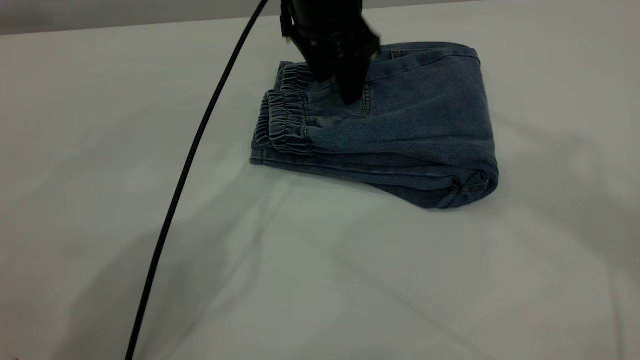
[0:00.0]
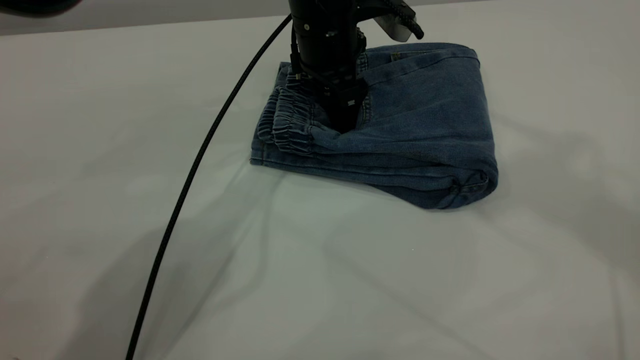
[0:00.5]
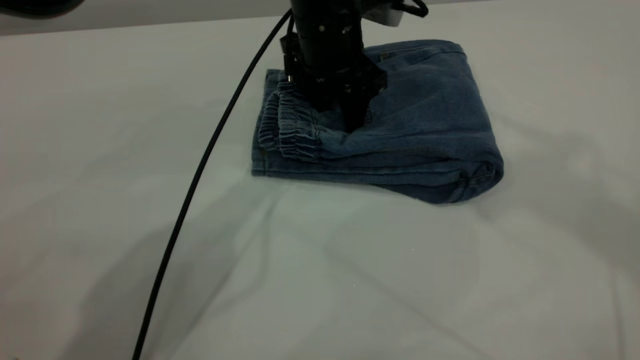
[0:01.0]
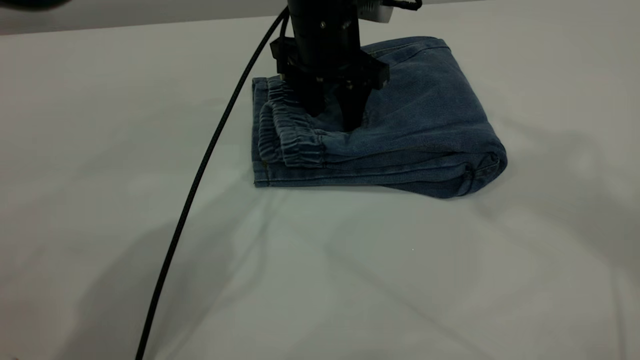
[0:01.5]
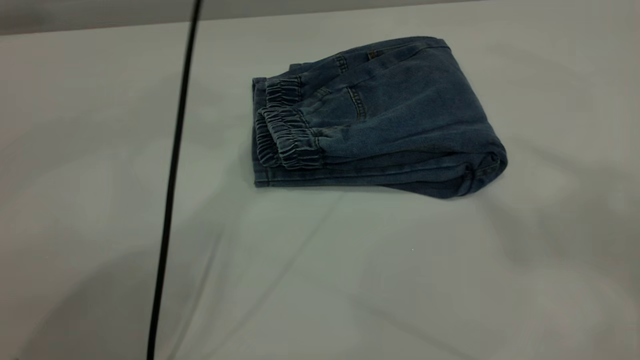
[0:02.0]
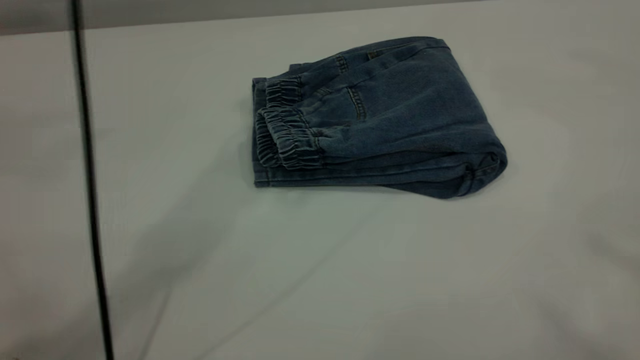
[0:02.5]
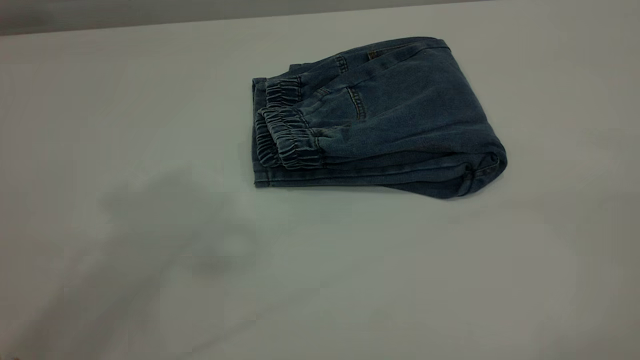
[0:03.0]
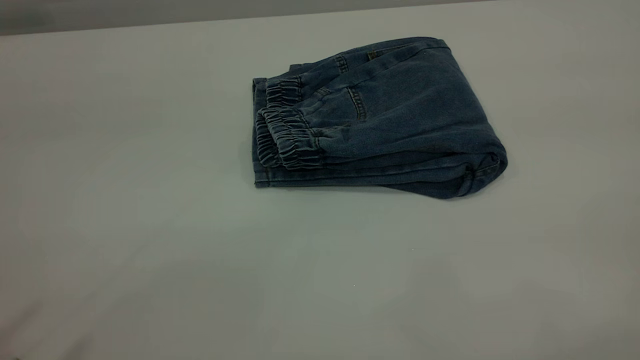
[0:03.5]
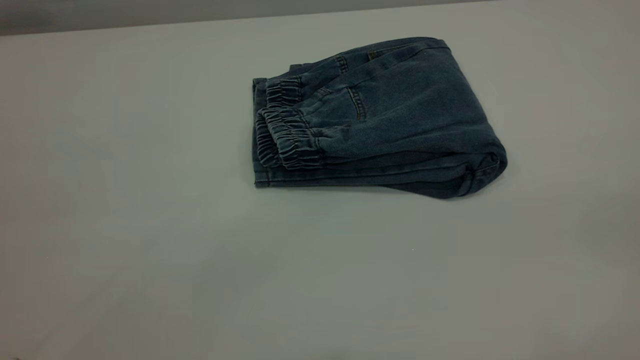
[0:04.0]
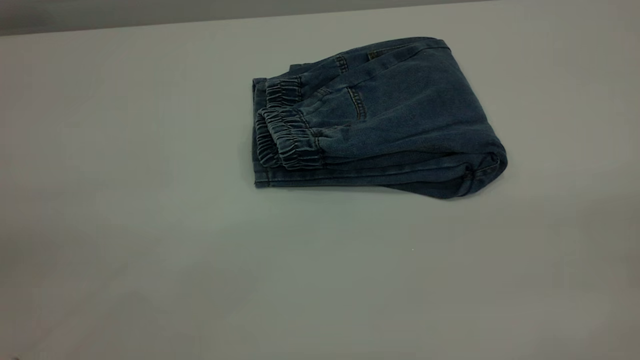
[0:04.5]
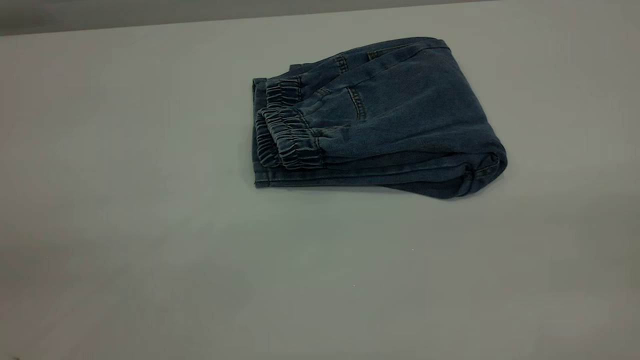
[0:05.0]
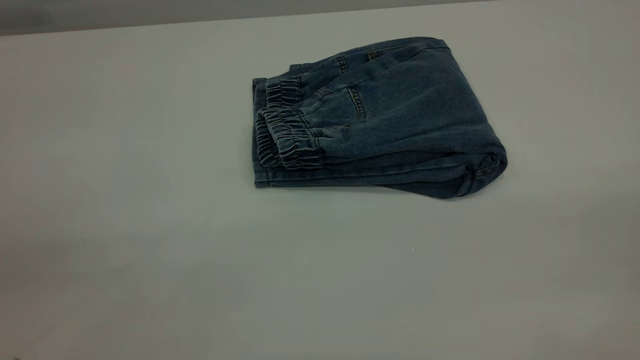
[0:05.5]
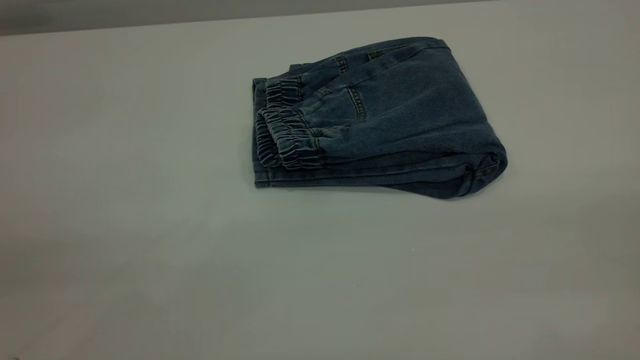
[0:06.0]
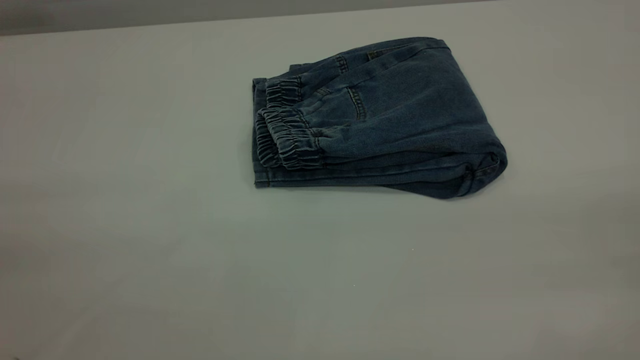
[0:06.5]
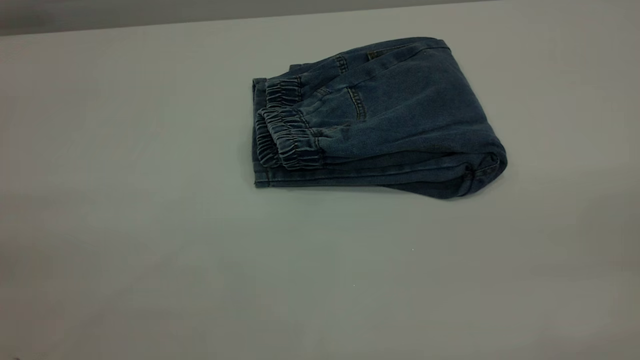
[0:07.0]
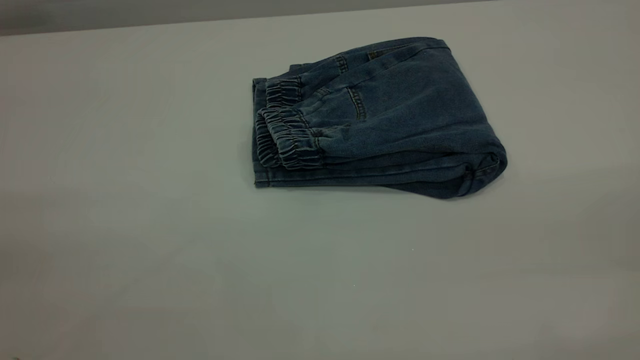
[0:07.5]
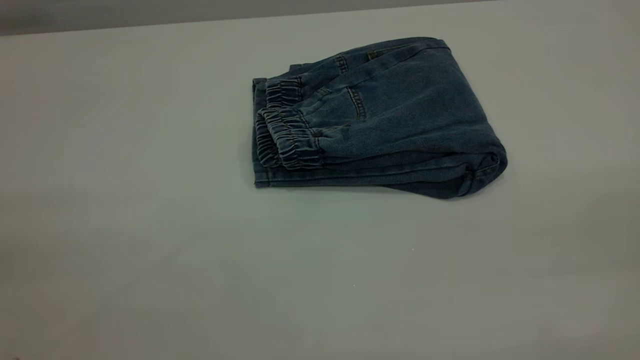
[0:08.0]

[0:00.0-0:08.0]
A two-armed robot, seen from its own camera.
0:00.0 to 0:02.0: The right gripper is displaced backward by about 5 cm. The left gripper heads upward, covering roughly 15 cm.
0:02.0 to 0:04.0: The left gripper shifts approximately 50 cm backward and to the left.

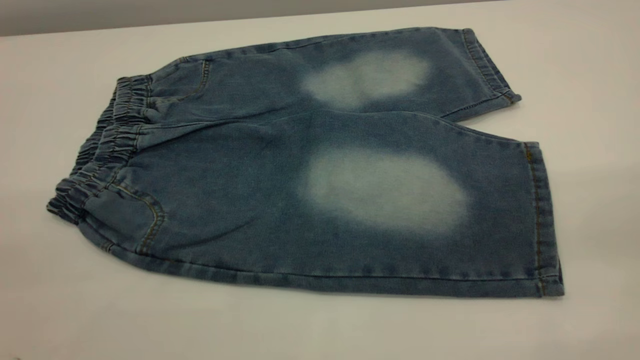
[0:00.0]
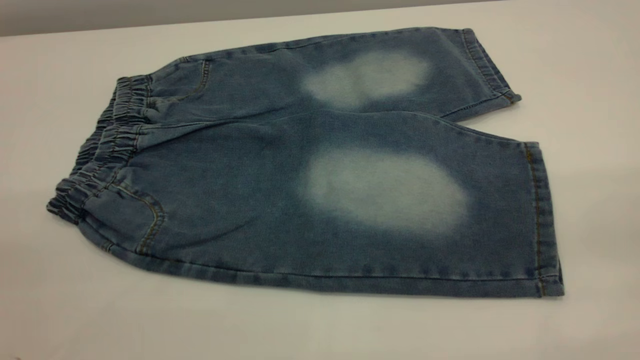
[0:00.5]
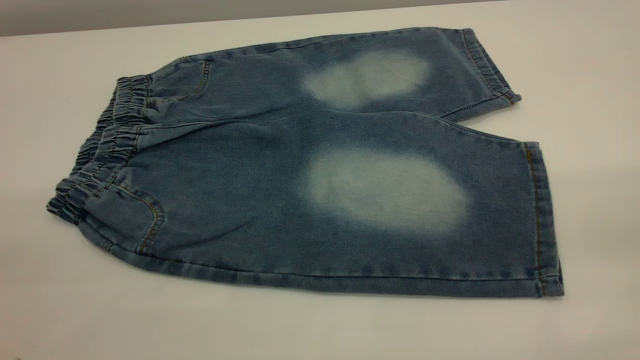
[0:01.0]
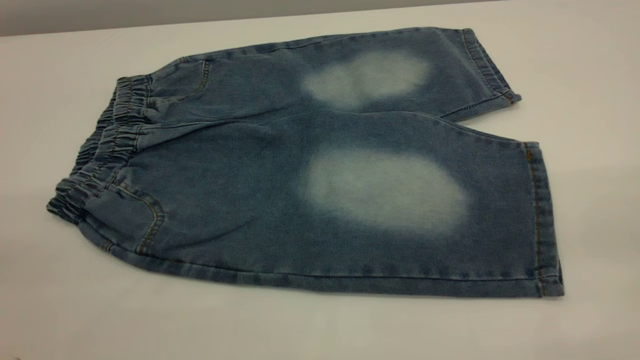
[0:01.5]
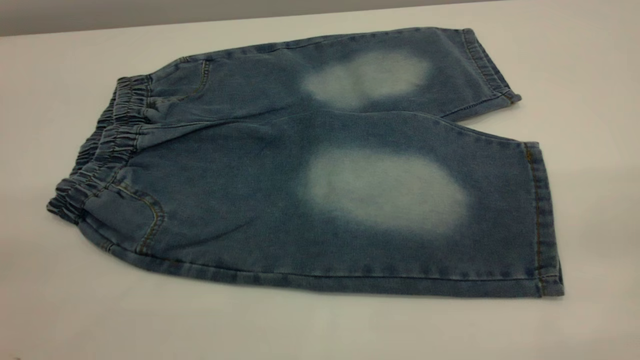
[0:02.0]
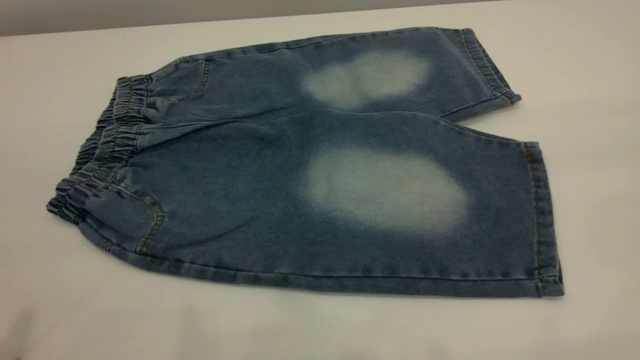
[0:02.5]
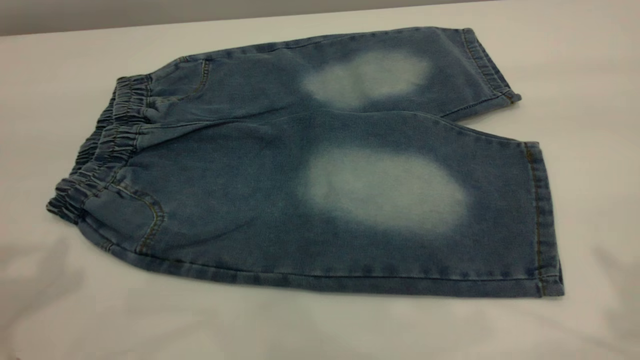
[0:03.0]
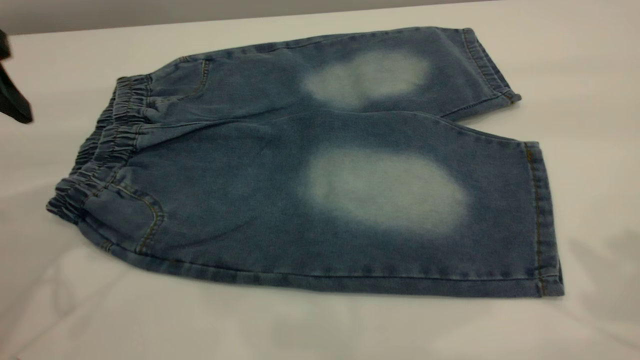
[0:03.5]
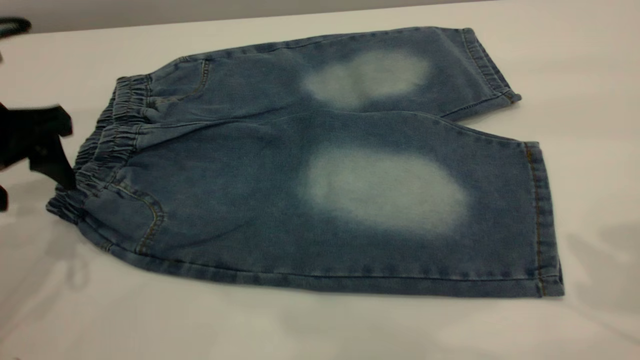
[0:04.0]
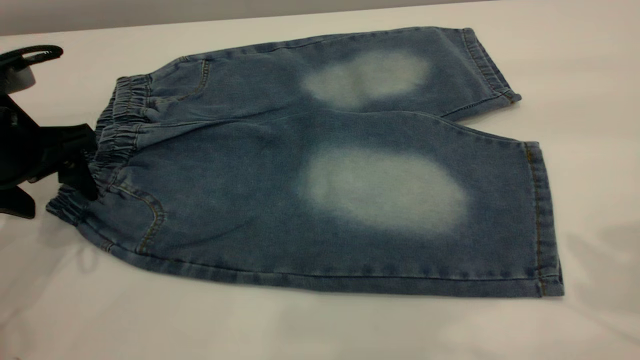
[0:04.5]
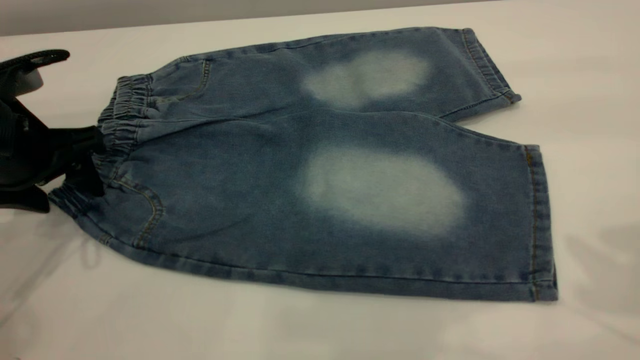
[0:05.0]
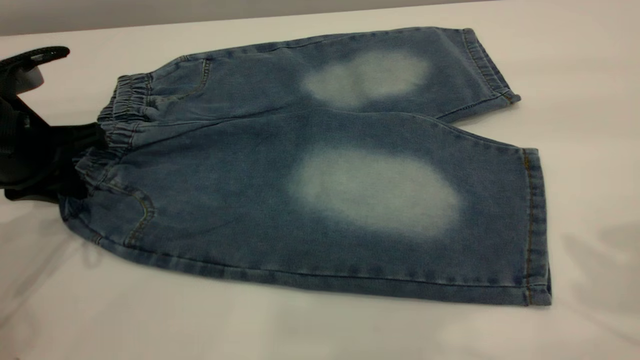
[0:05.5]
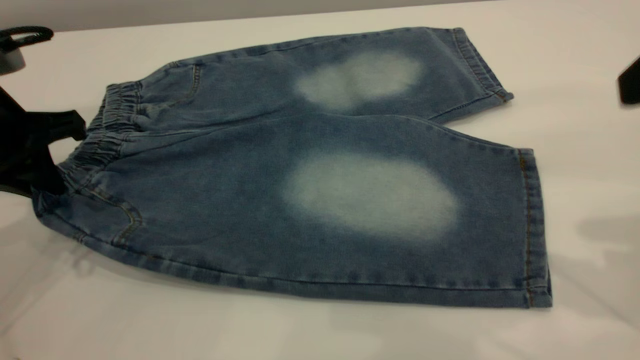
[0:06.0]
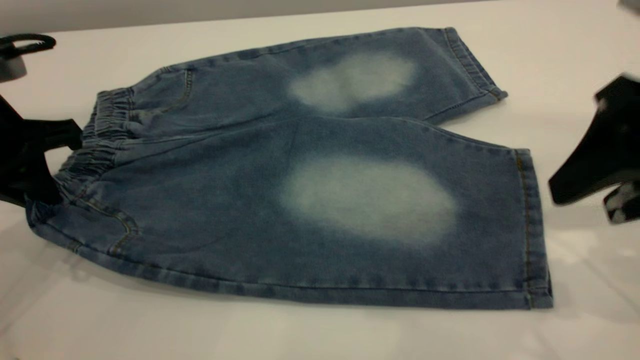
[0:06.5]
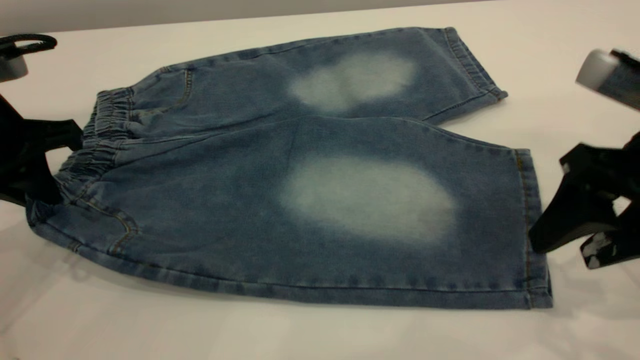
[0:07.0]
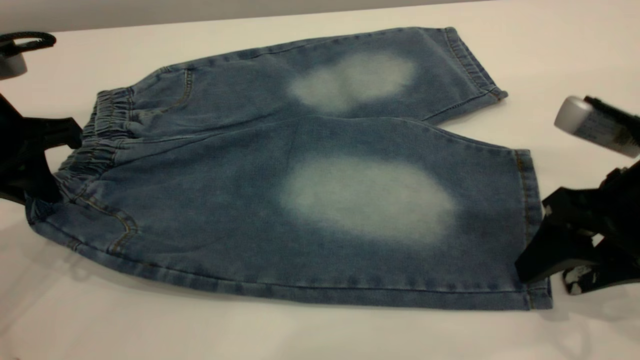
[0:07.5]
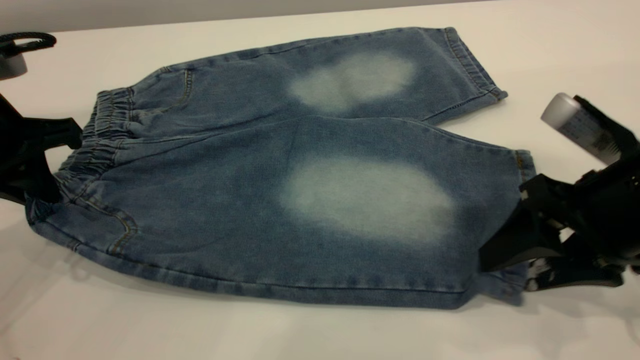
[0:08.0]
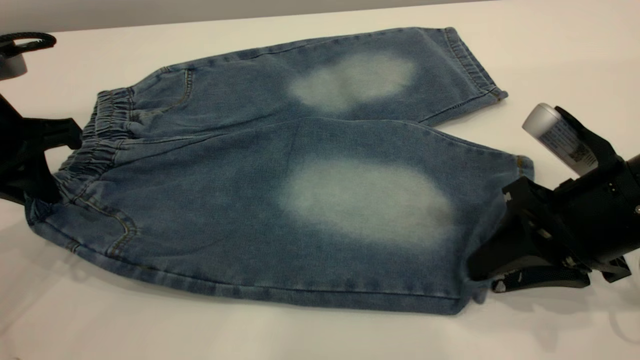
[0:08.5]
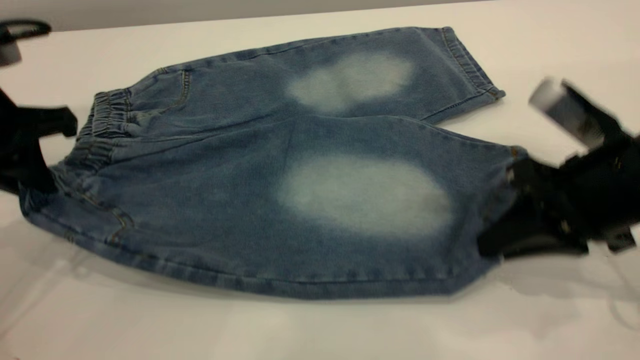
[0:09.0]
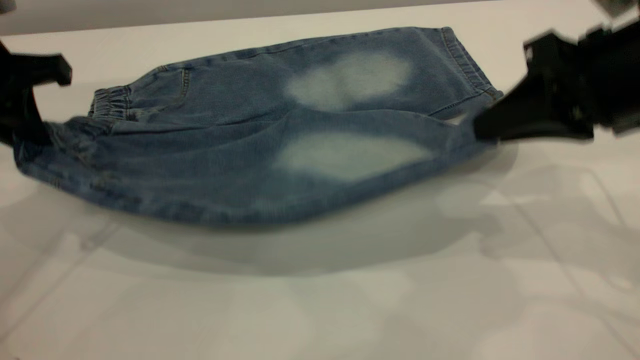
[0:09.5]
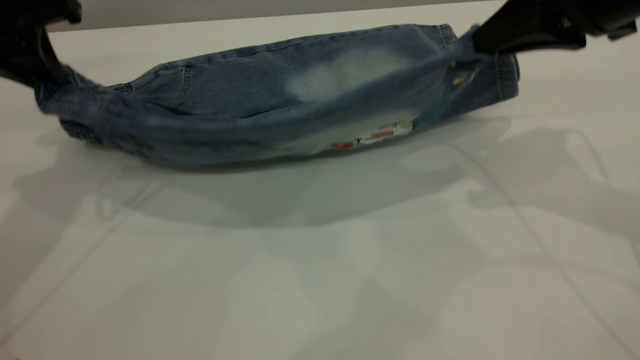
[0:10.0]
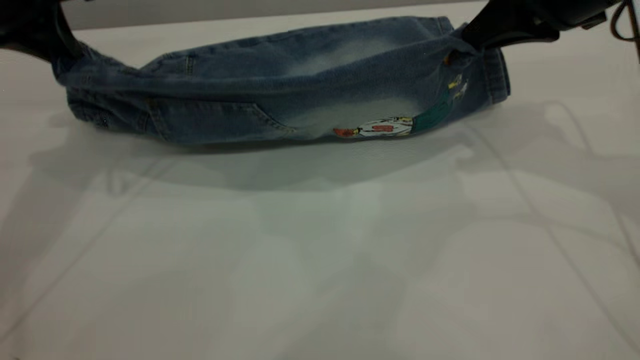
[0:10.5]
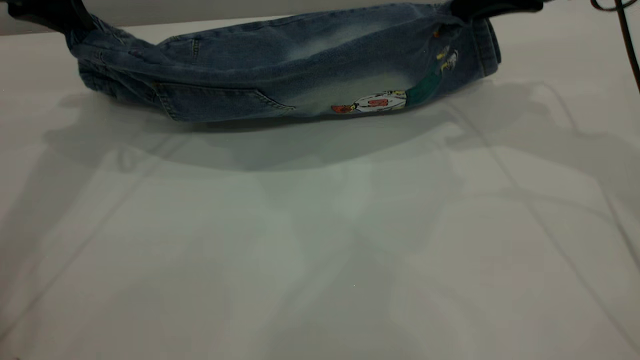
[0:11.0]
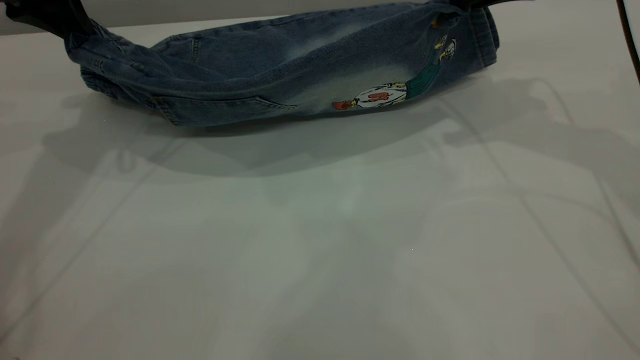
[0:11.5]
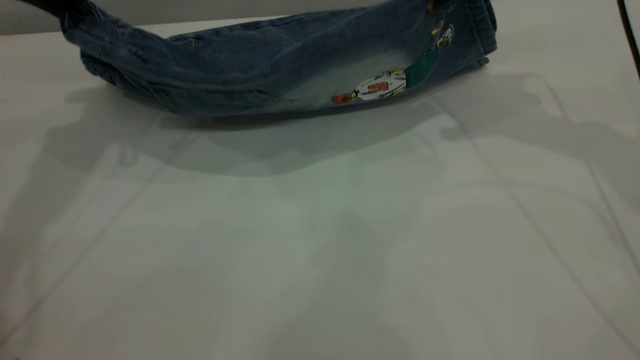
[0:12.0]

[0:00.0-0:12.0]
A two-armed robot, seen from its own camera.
0:00.0 to 0:02.0: The two grippers keep their place.
0:02.0 to 0:04.0: The left gripper goes roughly 35 cm forward and downward.
0:04.0 to 0:06.0: The right gripper is displaced downward by some 10 cm, while the left gripper closes up.
0:06.0 to 0:08.0: The right gripper moves downward, roughly 15 cm.
0:08.0 to 0:10.0: The right gripper moves upward and forward, approximately 15 cm, and closes its fingers. The left gripper heads upward and forward, covering roughly 10 cm.
0:10.0 to 0:12.0: Both grippers move forward, approximately 10 cm.
